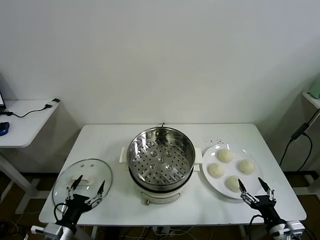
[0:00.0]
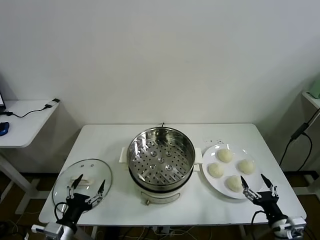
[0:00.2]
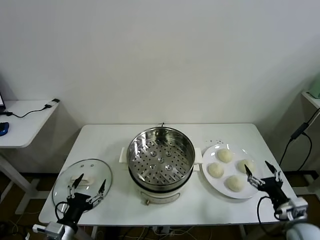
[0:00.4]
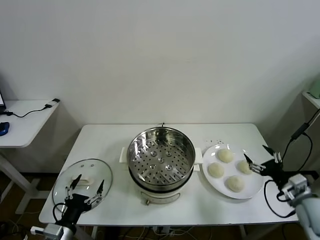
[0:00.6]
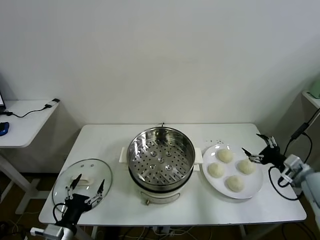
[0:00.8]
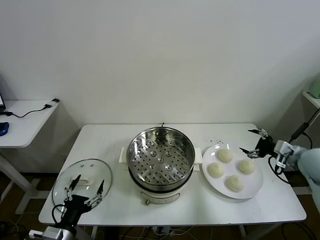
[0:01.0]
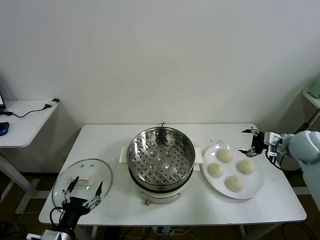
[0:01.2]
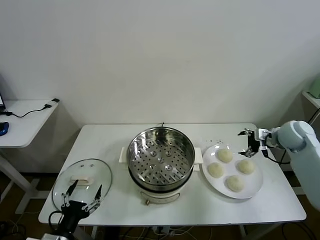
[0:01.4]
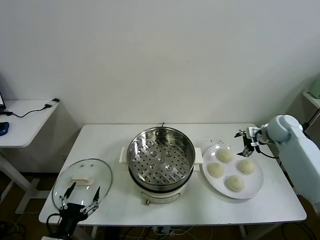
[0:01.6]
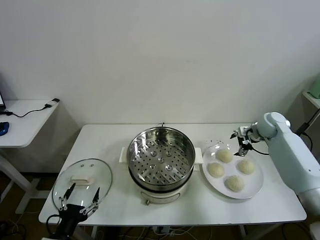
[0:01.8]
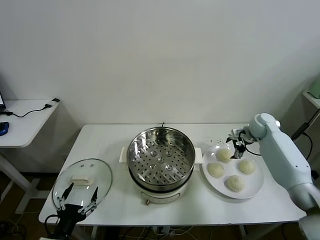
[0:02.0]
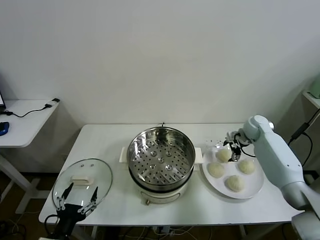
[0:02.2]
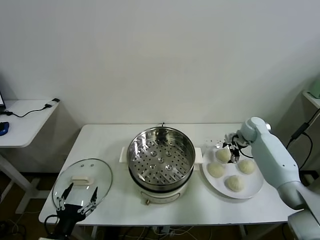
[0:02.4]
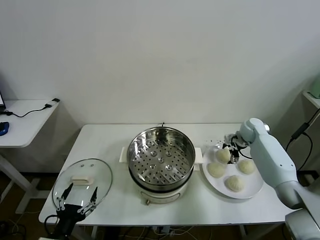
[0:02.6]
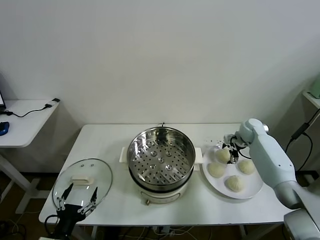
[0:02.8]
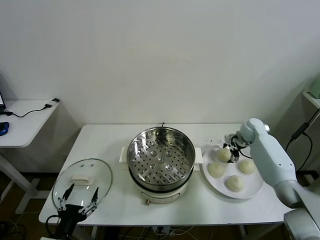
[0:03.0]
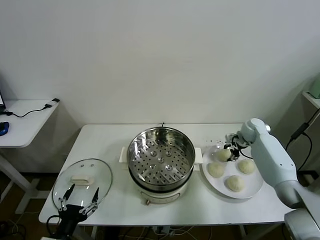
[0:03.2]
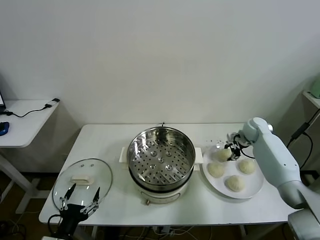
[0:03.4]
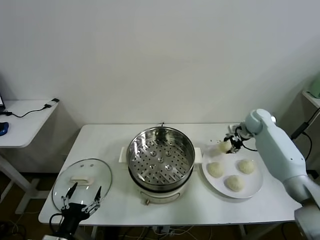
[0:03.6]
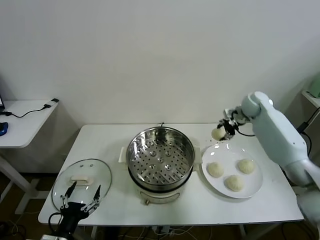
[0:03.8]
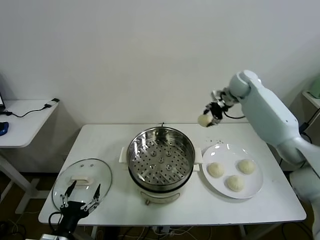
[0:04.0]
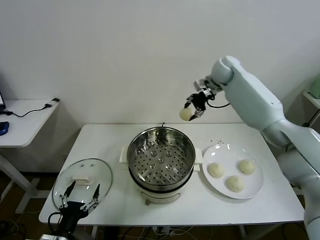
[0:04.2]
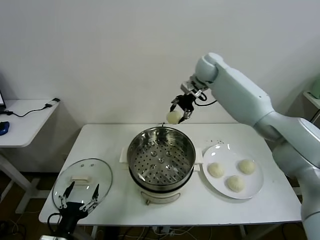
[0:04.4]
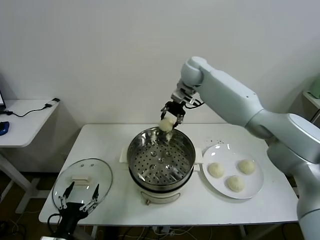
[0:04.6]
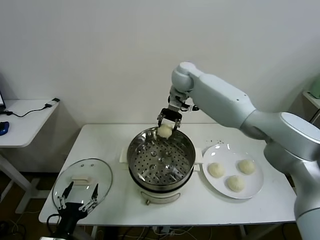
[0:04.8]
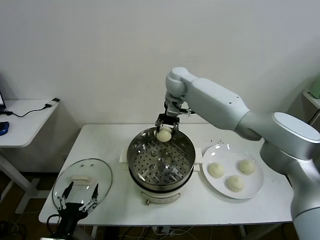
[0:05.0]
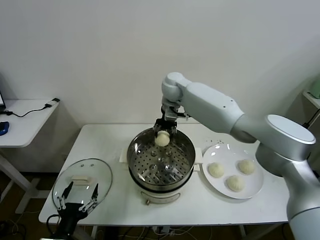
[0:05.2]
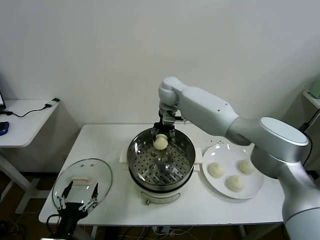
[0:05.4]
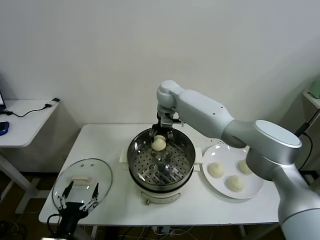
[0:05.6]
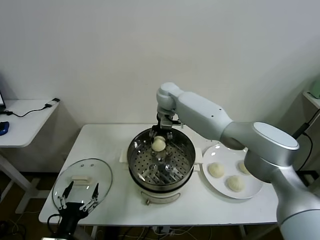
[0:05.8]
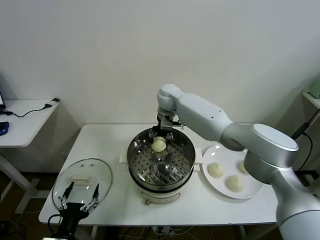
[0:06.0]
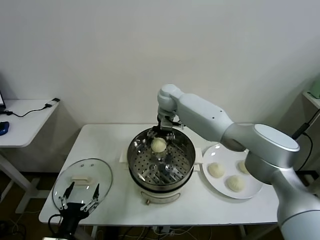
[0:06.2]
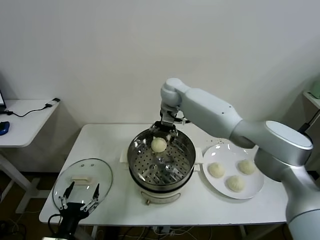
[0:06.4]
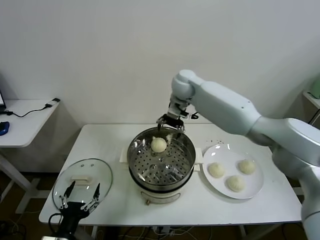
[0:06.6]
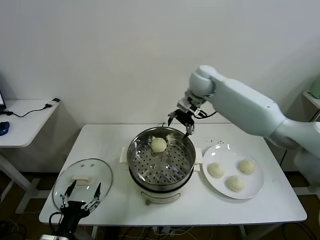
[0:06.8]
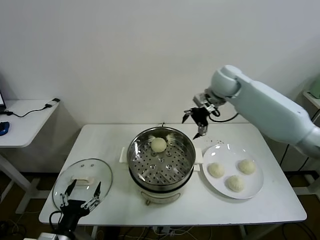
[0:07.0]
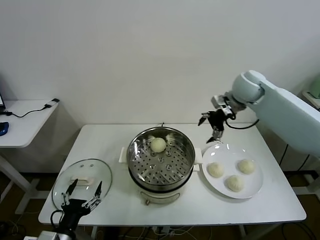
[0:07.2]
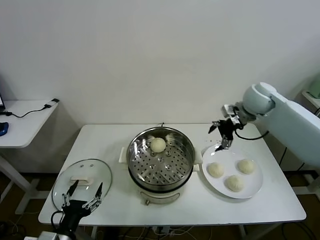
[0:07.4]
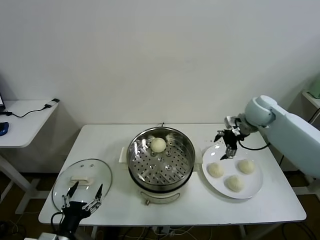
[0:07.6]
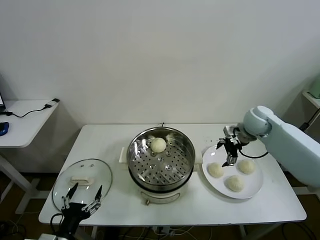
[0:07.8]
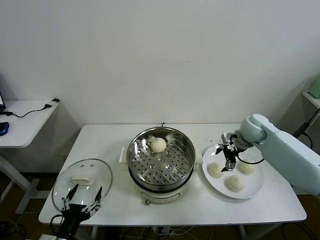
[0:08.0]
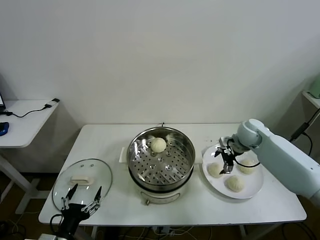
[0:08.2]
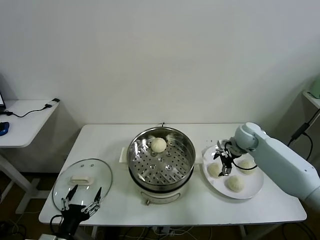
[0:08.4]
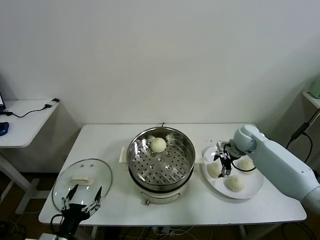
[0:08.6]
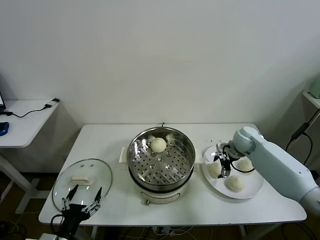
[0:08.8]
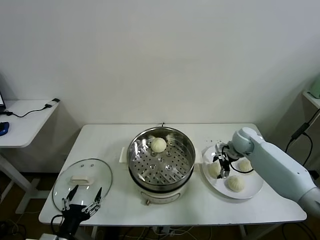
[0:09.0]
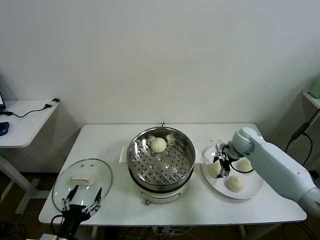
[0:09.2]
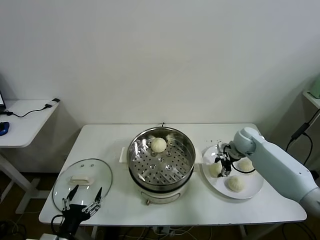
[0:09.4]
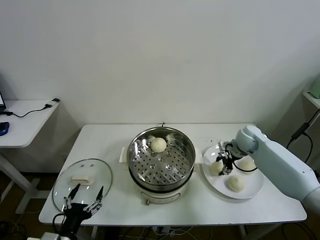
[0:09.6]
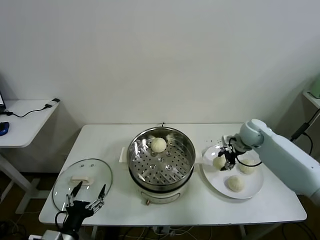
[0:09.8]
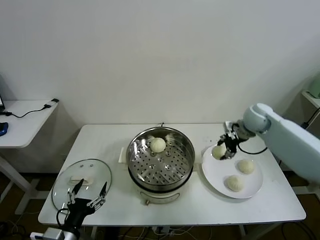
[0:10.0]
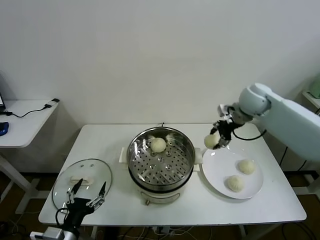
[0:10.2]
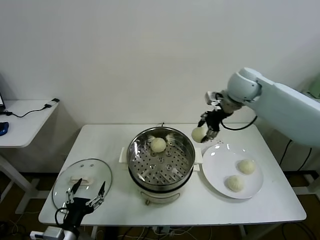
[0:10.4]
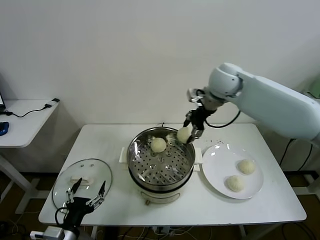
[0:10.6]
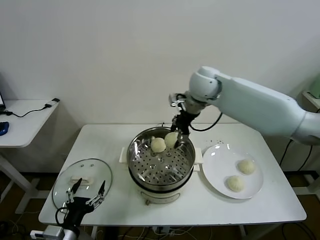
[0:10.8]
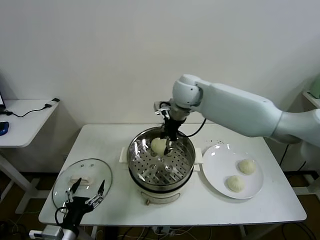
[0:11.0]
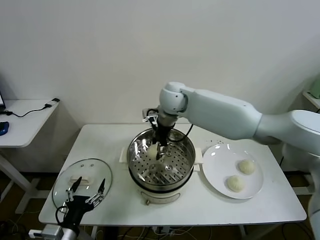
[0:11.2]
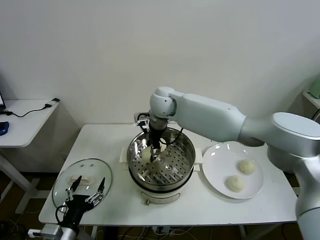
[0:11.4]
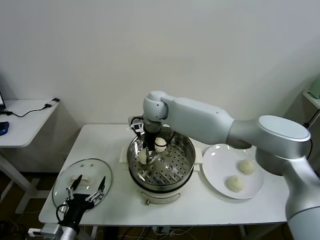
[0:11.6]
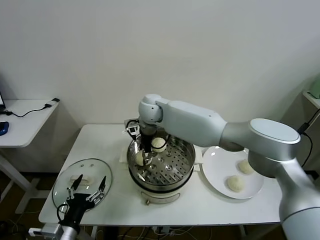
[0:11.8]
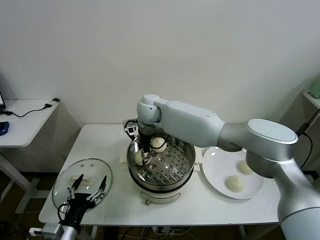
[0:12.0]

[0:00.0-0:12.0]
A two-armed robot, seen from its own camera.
Task of the whole recording: take steamed baozi put them in steamer then cover it.
Step, 0:00.0 to 0:03.4: Grasp the baozi in the plate with right gripper.
Step, 0:03.6 to 0:06.4: Place the baozi on the steamer with right gripper.
Step, 0:06.6 to 0:09.4: Grasp the baozi in the plate with right gripper.
0:01.6 to 0:03.0: The right gripper shifts approximately 5 cm downward, and closes its fingers.
0:03.0 to 0:04.4: The right gripper travels upward and to the left by approximately 35 cm.
0:04.4 to 0:06.0: The right gripper moves to the left and downward, about 15 cm, and opens its fingers.
0:06.0 to 0:07.6: The right gripper heads to the right, covering approximately 30 cm.
0:07.6 to 0:09.0: The right gripper shifts some 15 cm downward.
0:09.0 to 0:10.4: The right gripper is displaced upward by about 25 cm, and closes.
0:10.4 to 0:12.0: The right gripper moves to the left, roughly 25 cm.

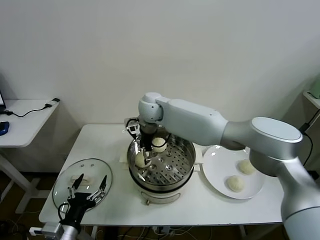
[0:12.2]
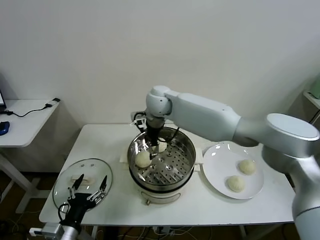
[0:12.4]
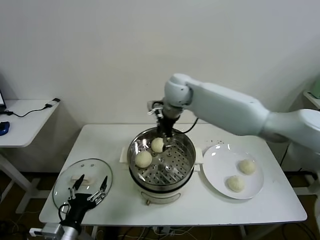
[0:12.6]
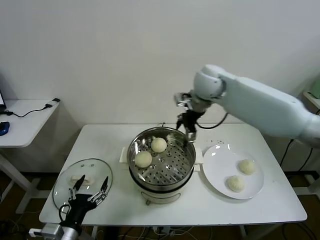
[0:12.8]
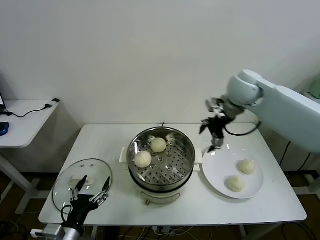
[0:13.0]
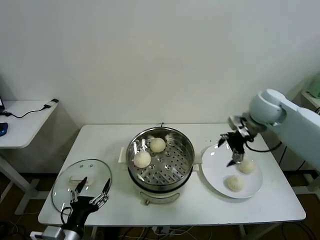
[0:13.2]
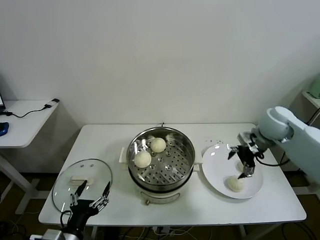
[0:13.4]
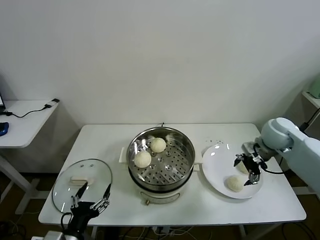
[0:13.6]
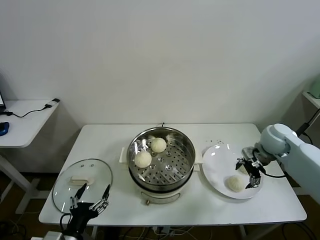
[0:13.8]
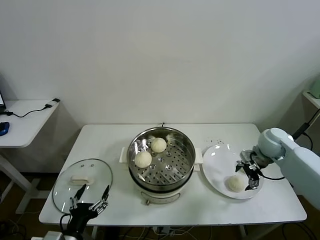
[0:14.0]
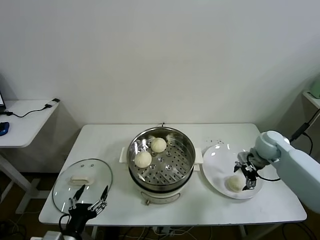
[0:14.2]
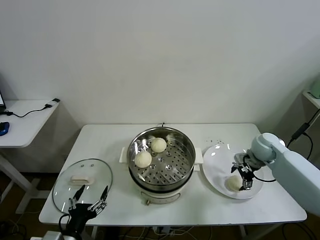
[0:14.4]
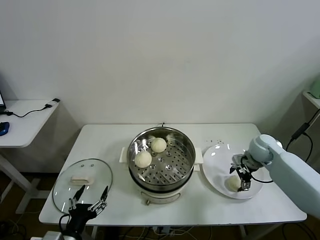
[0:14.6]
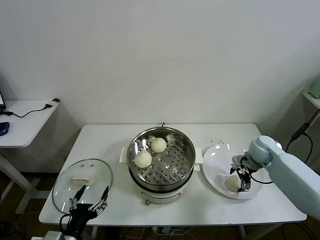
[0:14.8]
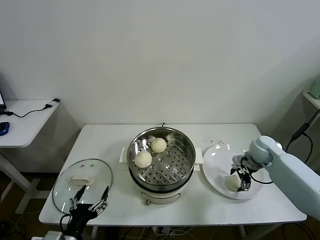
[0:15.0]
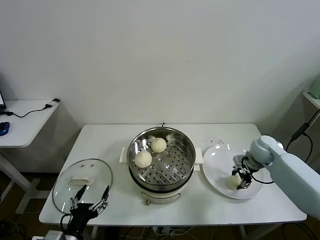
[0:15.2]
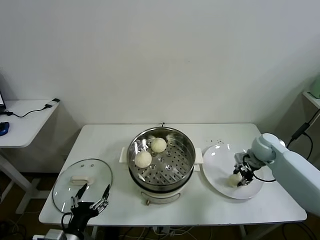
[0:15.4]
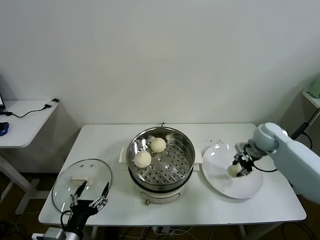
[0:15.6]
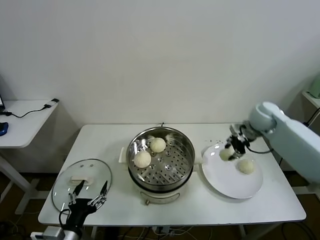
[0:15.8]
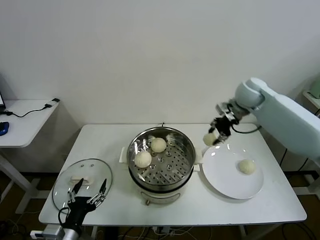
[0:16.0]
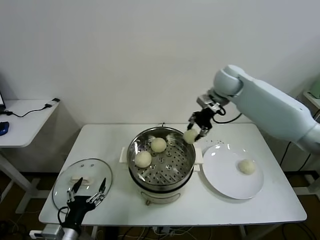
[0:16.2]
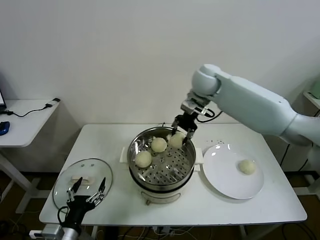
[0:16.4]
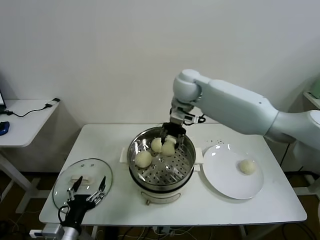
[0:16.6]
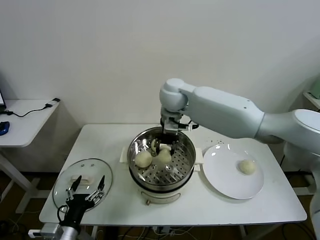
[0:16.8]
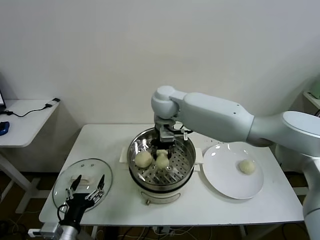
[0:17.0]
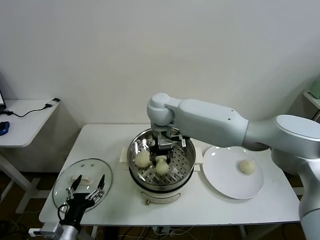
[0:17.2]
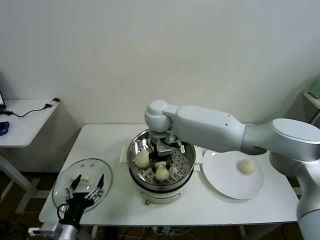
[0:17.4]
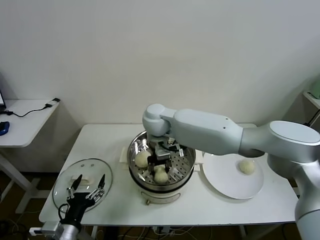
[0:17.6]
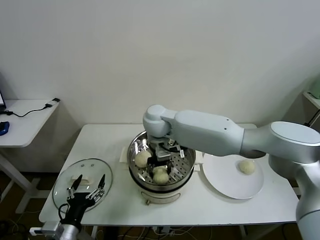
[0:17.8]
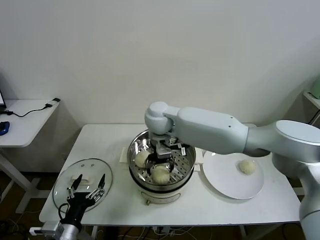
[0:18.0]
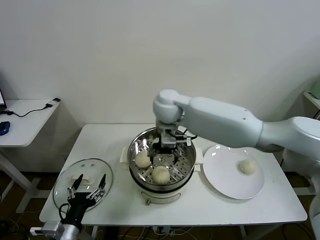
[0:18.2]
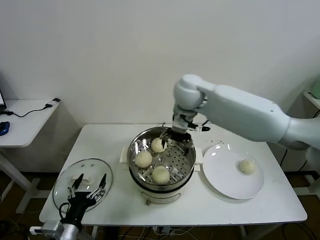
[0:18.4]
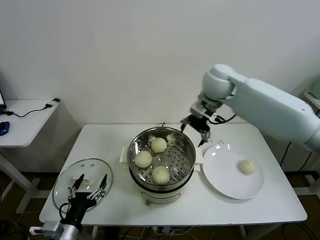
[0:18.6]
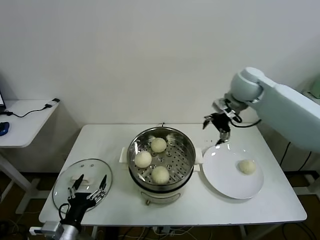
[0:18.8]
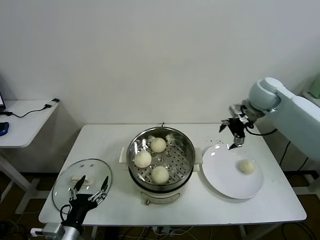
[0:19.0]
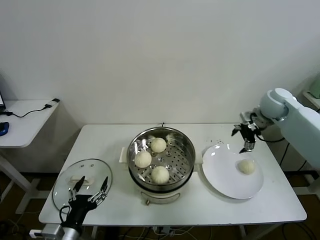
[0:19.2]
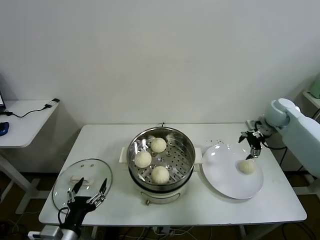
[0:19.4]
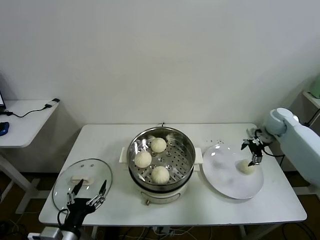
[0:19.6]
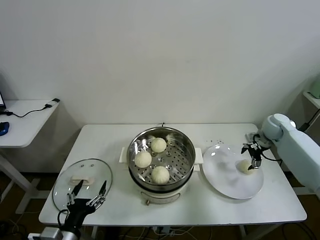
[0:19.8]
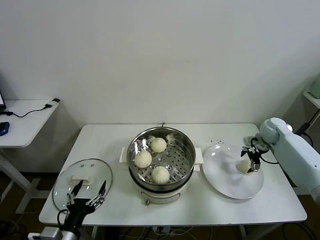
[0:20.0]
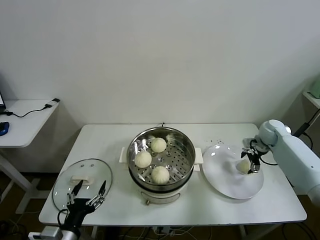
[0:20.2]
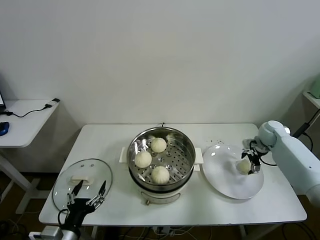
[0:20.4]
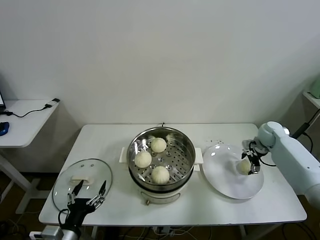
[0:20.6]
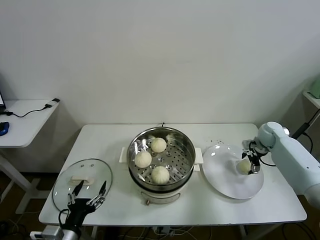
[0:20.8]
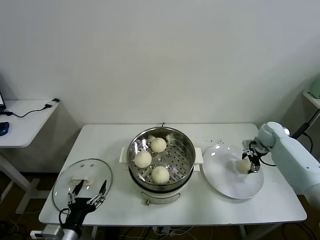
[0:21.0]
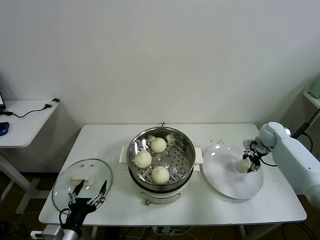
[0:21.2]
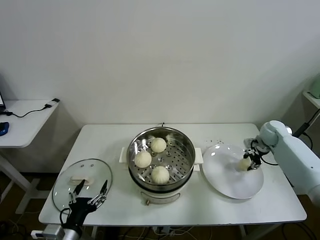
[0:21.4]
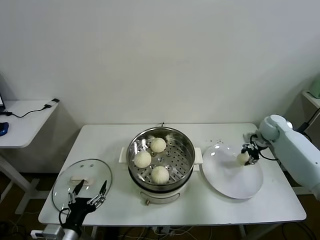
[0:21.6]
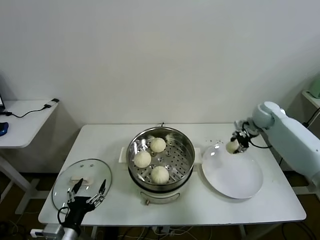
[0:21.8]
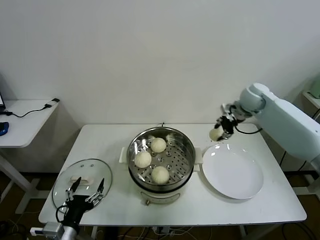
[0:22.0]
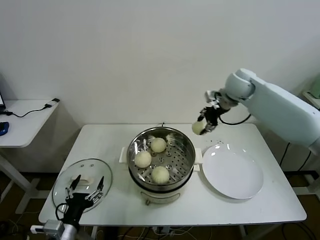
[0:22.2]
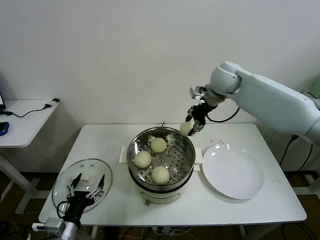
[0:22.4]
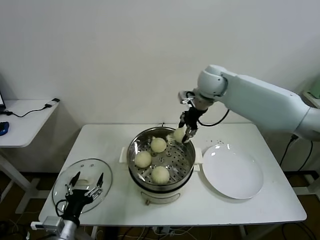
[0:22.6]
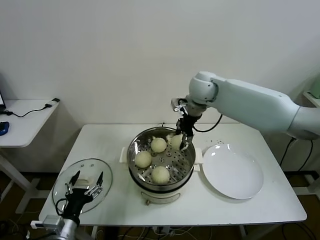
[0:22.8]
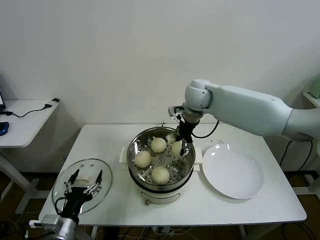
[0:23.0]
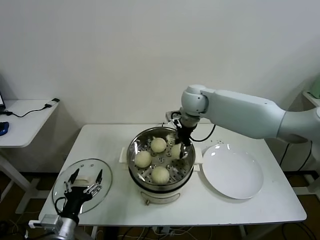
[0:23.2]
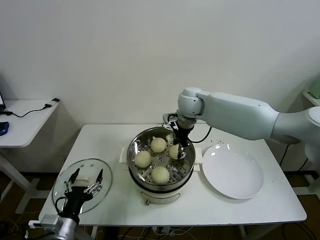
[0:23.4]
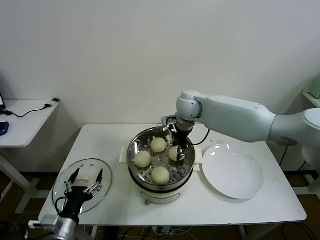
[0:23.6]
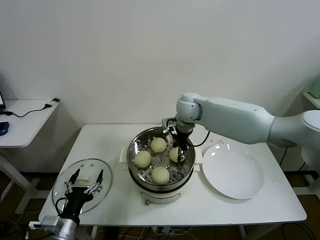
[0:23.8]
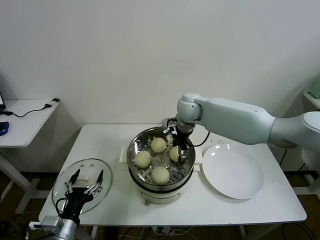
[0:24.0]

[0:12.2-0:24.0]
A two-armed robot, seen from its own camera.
Task of the whole recording: take steamed baozi put them in steamer then cover it.
Step, 0:12.6 to 0:15.2: Grasp the baozi in the plate with right gripper.
Step, 0:15.4 to 0:18.2: Place the baozi on the steamer with right gripper.
Step, 0:18.4 to 0:21.2: Grasp the baozi in the plate with right gripper.
0:12.2 to 0:13.6: The right gripper moves to the right, some 40 cm.
0:13.6 to 0:15.2: The right gripper is displaced downward by some 10 cm, and closes up.
0:15.2 to 0:16.6: The right gripper heads to the left and upward, covering some 40 cm.
0:16.6 to 0:18.2: The right gripper travels backward by some 5 cm, and opens up.
0:18.2 to 0:19.6: The right gripper shifts roughly 40 cm to the right.
0:19.6 to 0:21.0: The right gripper is displaced downward by approximately 5 cm.
0:21.0 to 0:22.6: The right gripper heads to the left and upward, covering roughly 35 cm, and closes.
0:22.6 to 0:24.0: The right gripper shifts some 10 cm downward and to the left, and opens.
